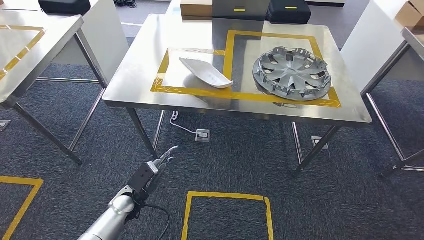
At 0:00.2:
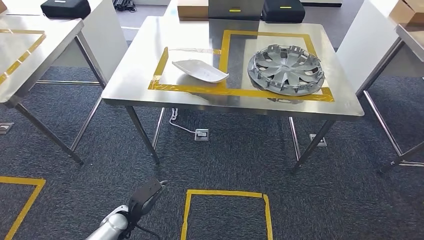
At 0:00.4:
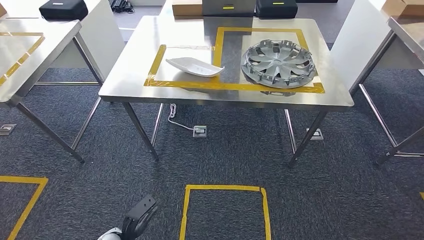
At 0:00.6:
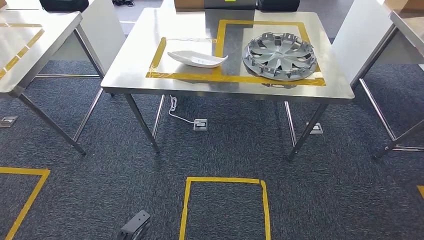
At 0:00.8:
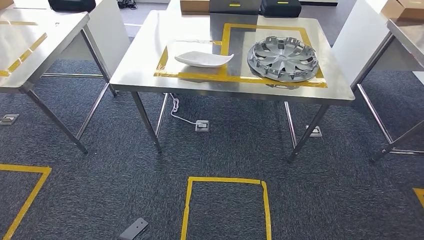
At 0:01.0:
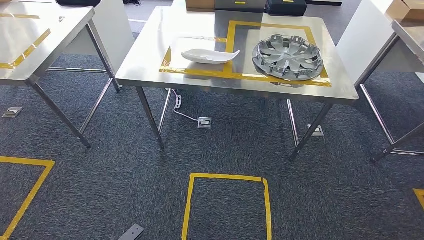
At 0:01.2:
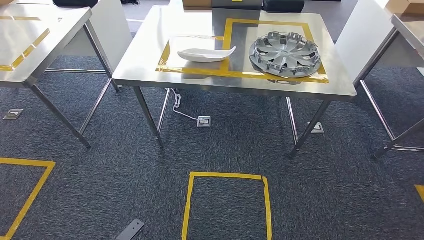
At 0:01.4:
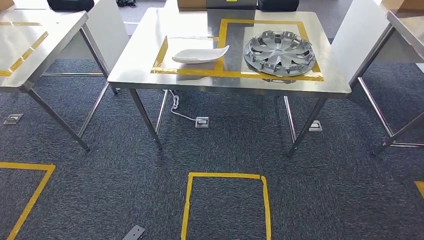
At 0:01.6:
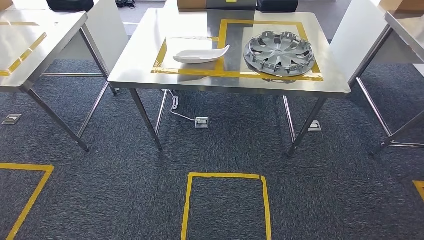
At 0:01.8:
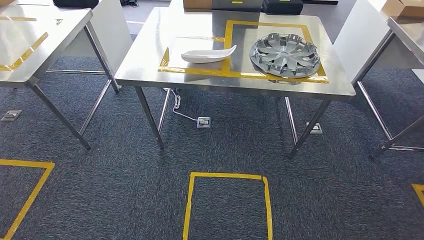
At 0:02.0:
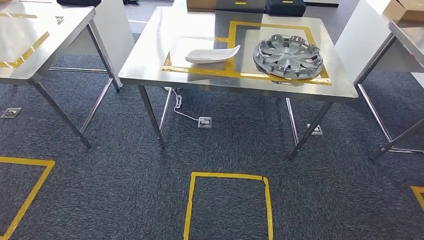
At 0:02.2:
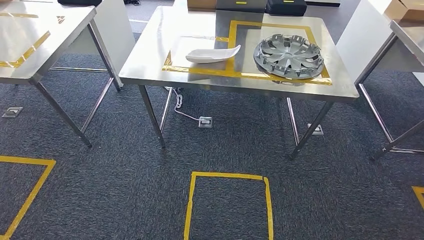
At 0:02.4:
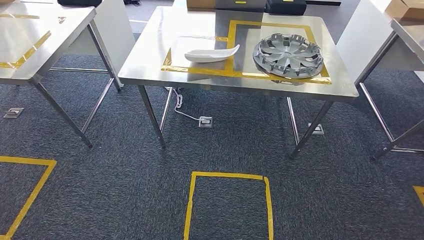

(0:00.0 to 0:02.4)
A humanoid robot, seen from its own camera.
Step, 0:00.0 - 0:02.4: Return to the initial position at the workbench.
0:01.2 - 0:02.4: The left hand heads backward, covering roughly 10 cm.
